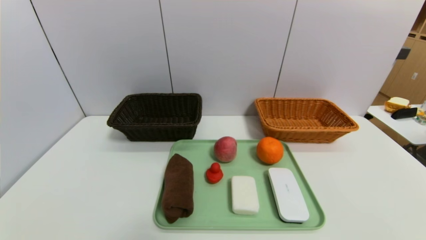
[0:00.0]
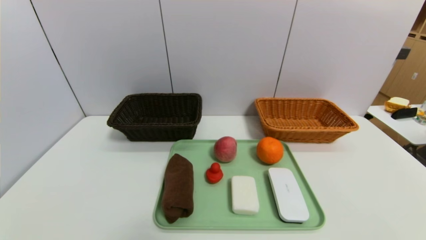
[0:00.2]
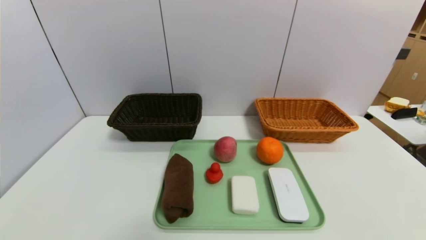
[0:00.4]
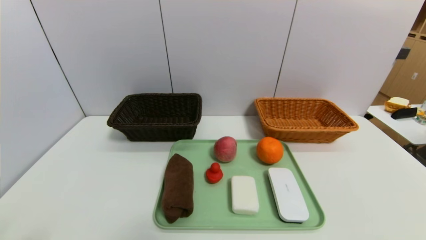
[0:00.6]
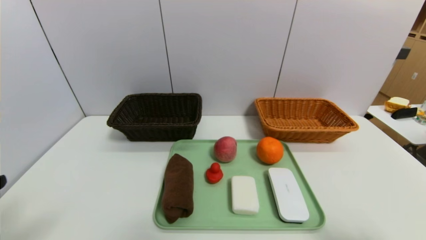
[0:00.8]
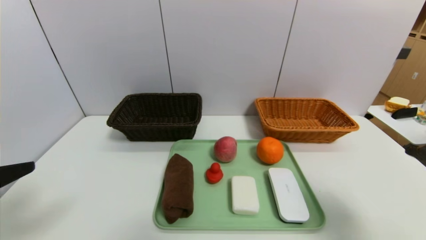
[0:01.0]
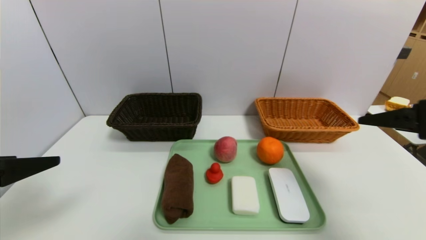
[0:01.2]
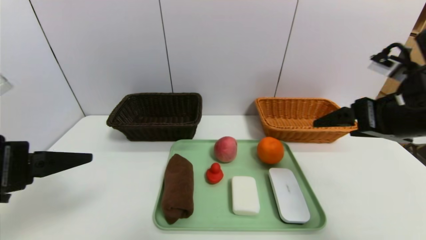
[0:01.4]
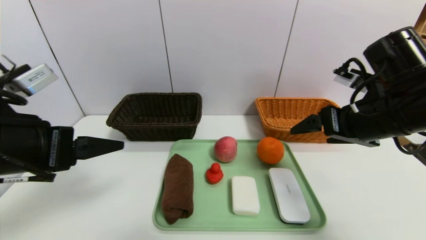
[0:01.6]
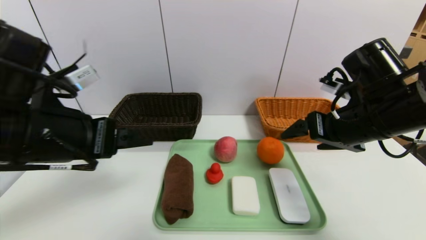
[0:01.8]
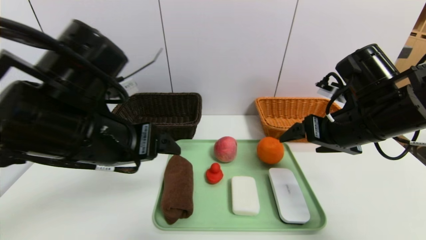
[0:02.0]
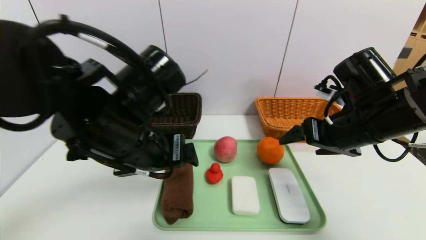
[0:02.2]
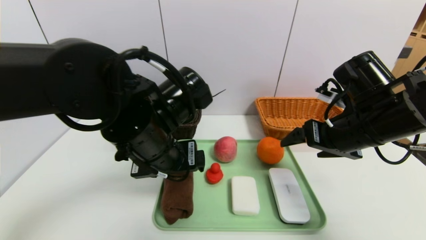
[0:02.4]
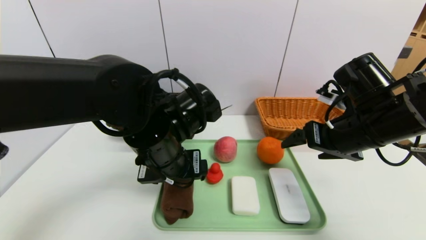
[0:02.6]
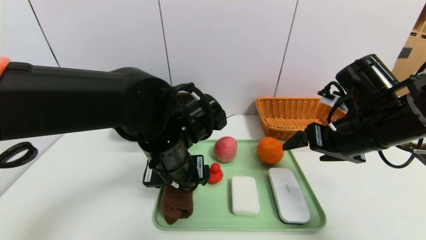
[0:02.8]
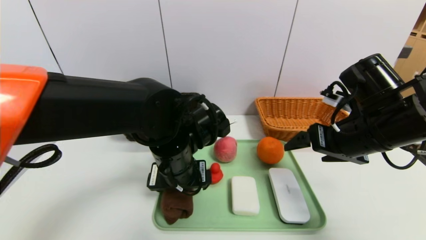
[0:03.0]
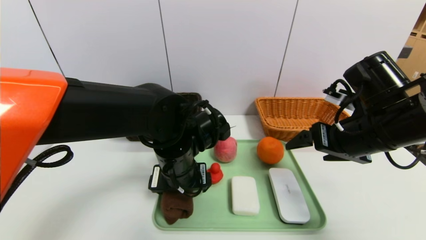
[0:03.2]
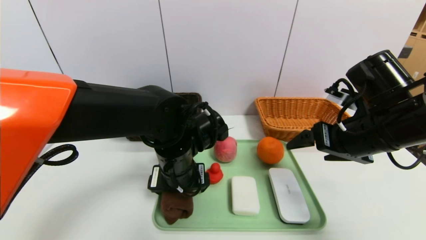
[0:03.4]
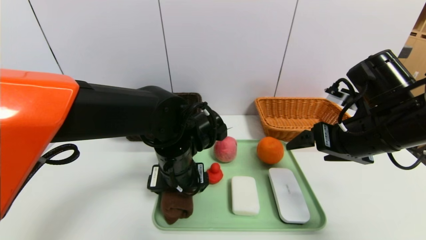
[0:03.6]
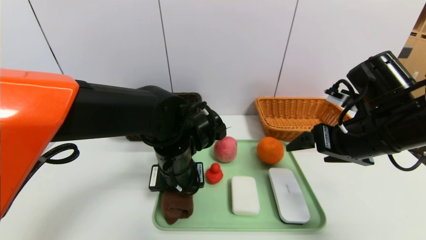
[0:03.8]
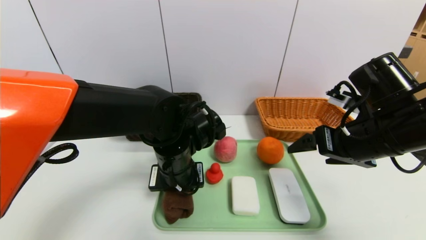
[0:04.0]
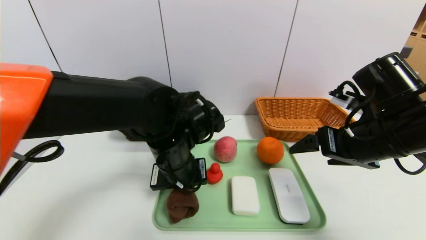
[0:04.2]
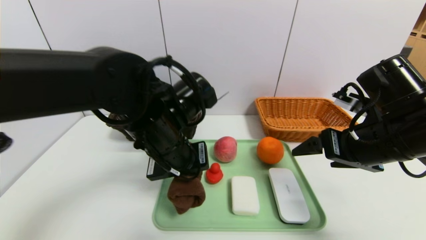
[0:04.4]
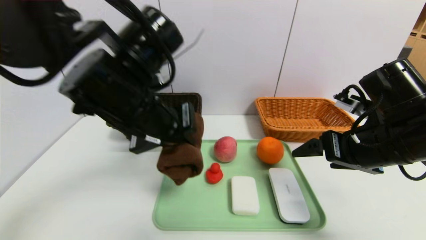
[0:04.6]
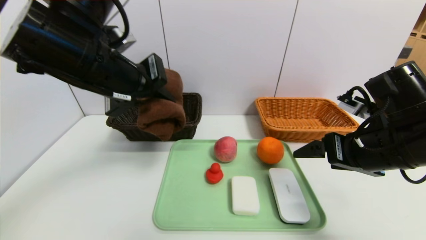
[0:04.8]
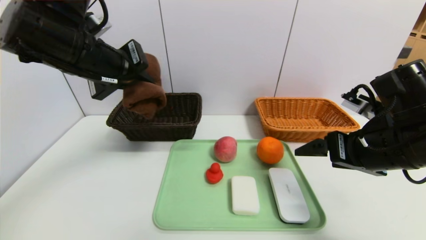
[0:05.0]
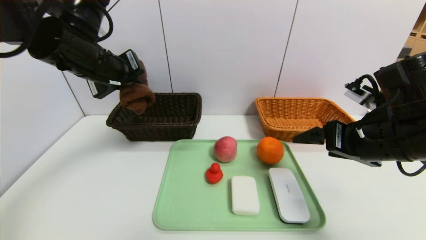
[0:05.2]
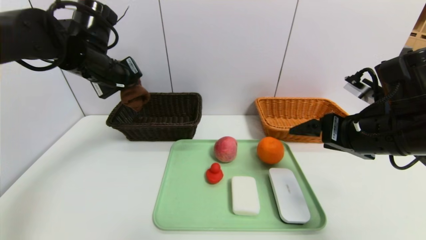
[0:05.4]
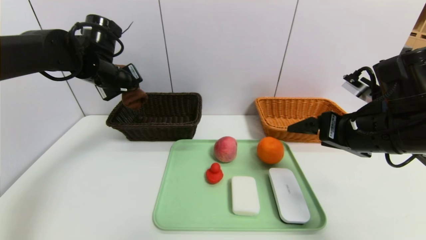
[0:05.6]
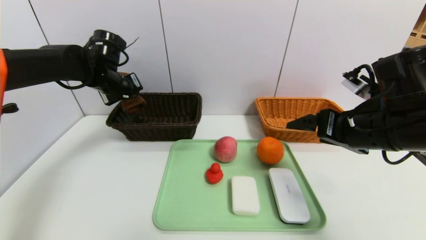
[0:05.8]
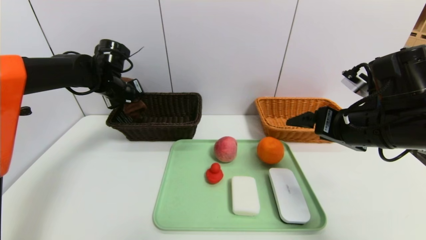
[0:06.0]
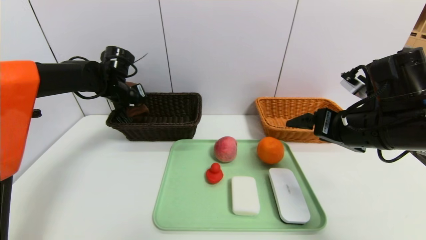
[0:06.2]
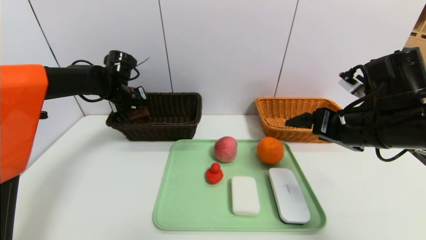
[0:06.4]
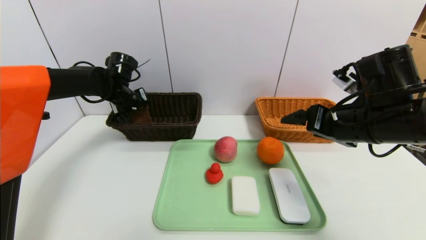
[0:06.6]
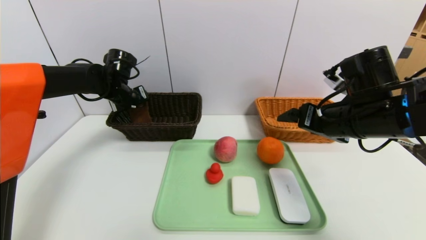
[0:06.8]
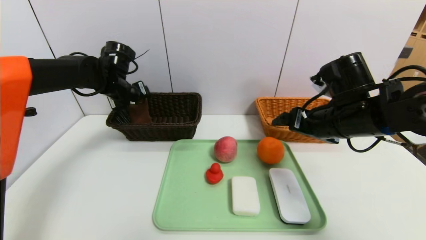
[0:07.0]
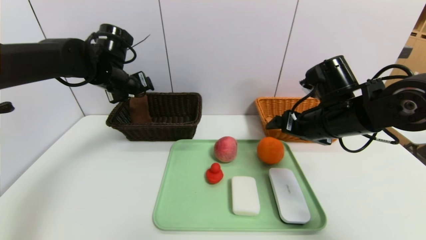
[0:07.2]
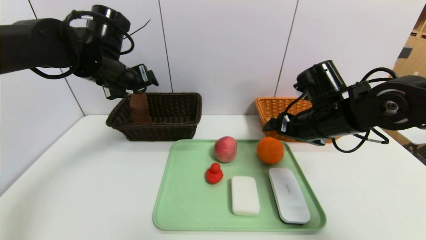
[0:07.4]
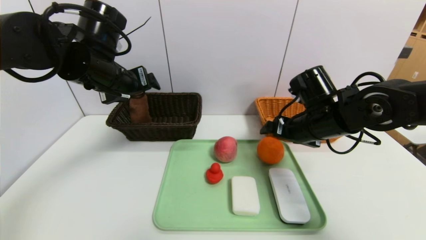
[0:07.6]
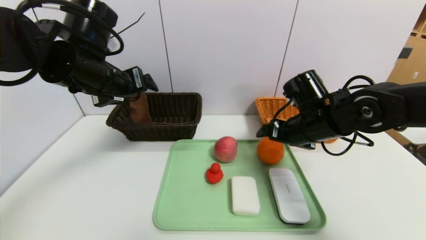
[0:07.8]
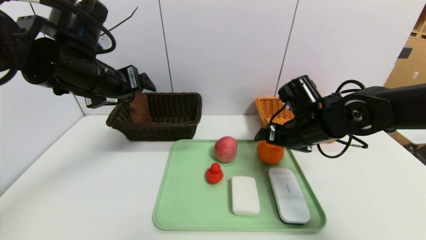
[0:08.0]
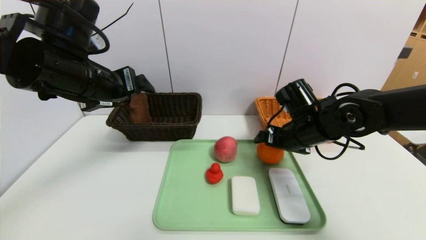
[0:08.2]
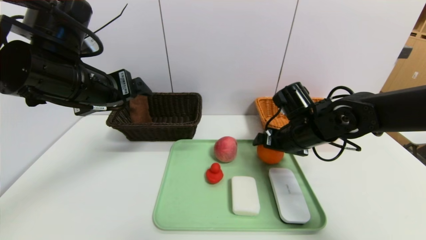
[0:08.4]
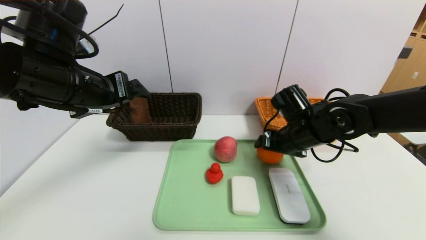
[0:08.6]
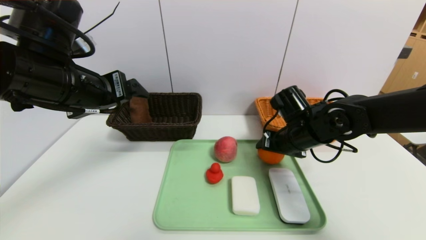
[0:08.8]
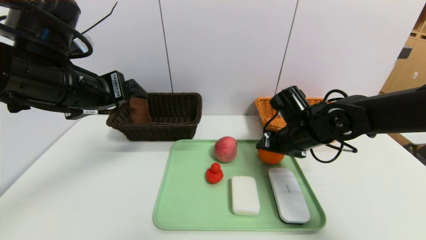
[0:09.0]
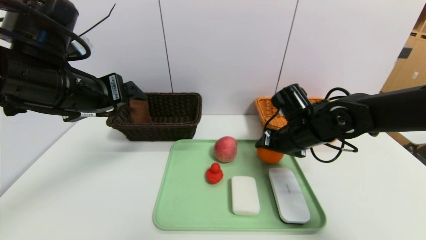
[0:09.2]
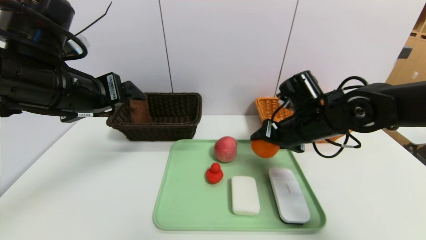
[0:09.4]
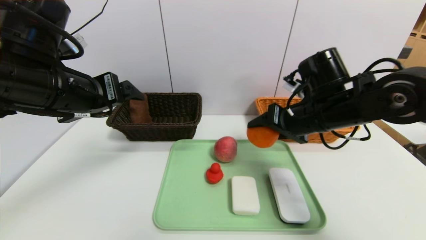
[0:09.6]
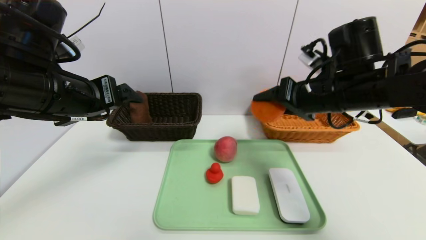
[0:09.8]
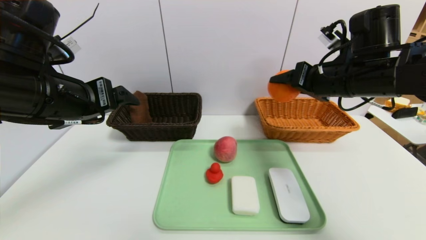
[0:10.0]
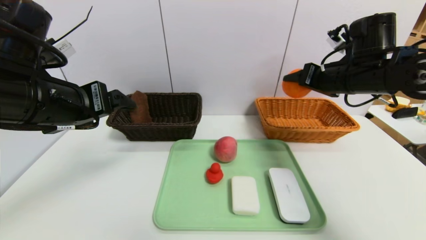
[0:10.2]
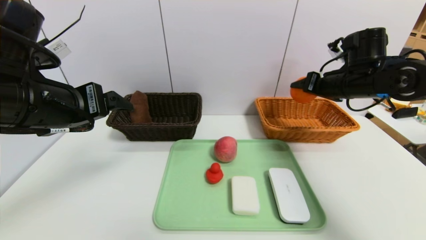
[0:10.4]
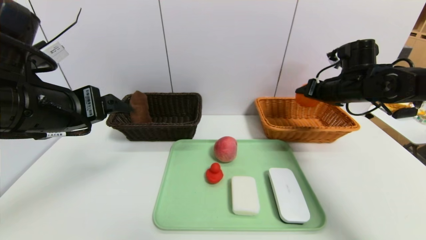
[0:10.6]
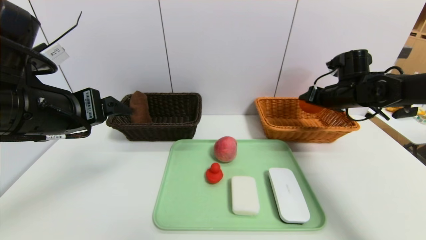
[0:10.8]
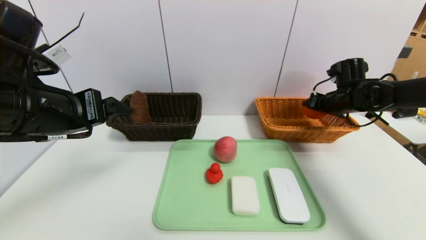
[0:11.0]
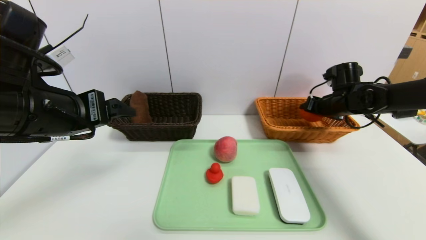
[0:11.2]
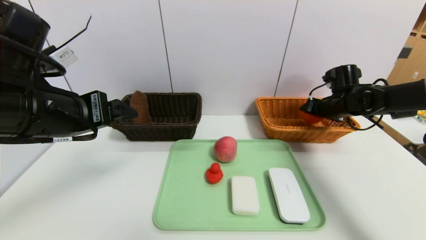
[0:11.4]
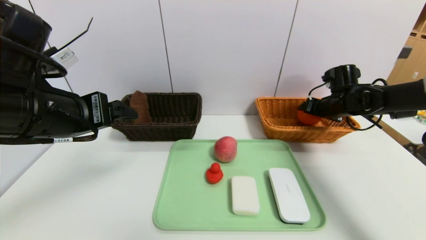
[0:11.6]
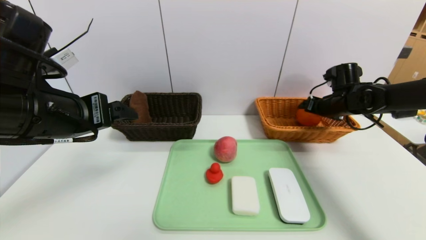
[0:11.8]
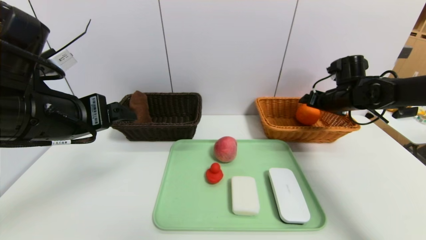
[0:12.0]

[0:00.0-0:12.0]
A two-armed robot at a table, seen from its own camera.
Task of the whole recording: place the food in the right basket with the right gripper, and place the non food items in the left basket with the left gripper.
Step, 0:00.0 to 0:07.2: Grasp the brown towel and put it in the left basket.
Step, 0:07.4 to 0:12.0: Grasp the orange and put it in the right basket.
0:00.0 to 0:01.6: The right gripper goes some 30 cm forward and upward. Meanwhile the left gripper is displaced upward and forward by about 25 cm.
0:01.6 to 0:03.0: The left gripper is displaced to the right, downward and forward by roughly 20 cm.
0:03.0 to 0:04.4: The left gripper travels upward by approximately 5 cm, and closes.
0:04.4 to 0:06.0: The left gripper shifts some 25 cm forward and to the left.
0:06.0 to 0:07.6: The left gripper shifts roughly 15 cm backward, upward and to the right, and opens its fingers; the right gripper travels forward by some 5 cm.
0:07.6 to 0:09.0: The right gripper closes its fingers. The left gripper shifts approximately 10 cm backward.
0:09.0 to 0:10.4: The right gripper moves to the right and upward, approximately 15 cm.
0:10.4 to 0:12.0: The right gripper moves some 5 cm, and opens its fingers.

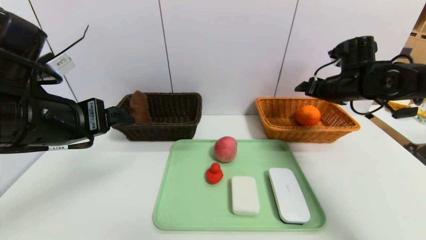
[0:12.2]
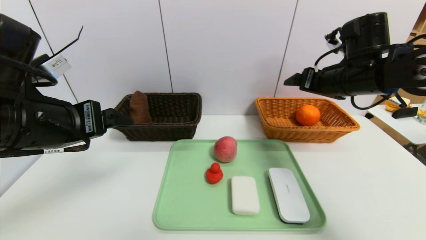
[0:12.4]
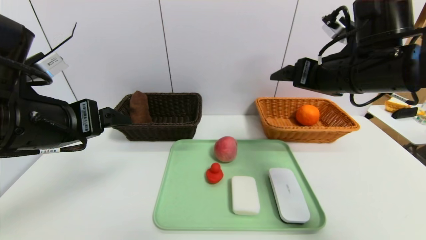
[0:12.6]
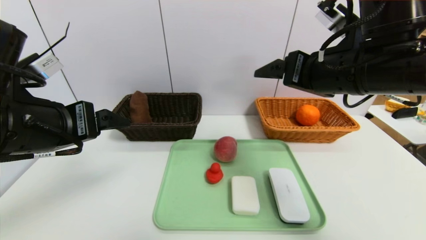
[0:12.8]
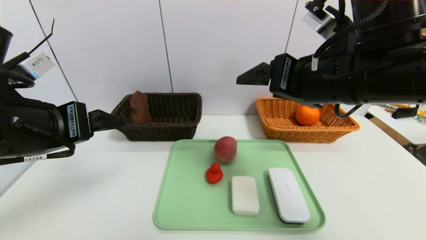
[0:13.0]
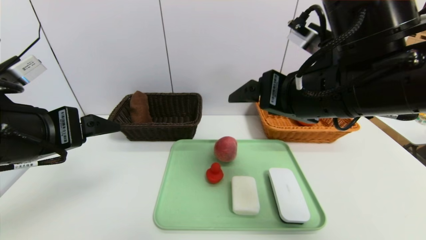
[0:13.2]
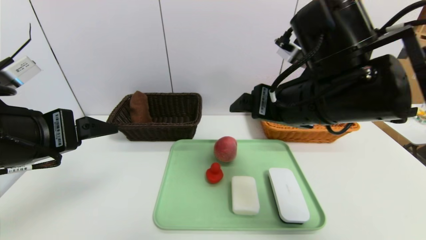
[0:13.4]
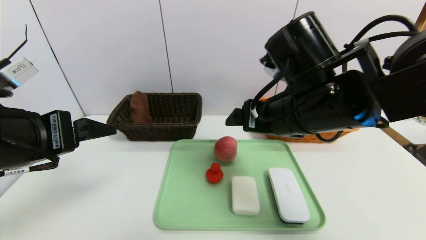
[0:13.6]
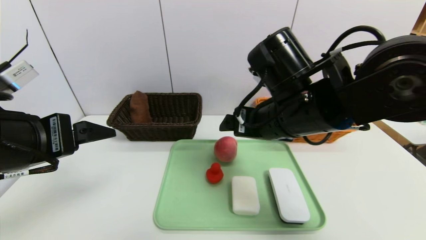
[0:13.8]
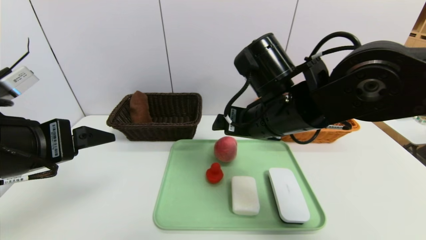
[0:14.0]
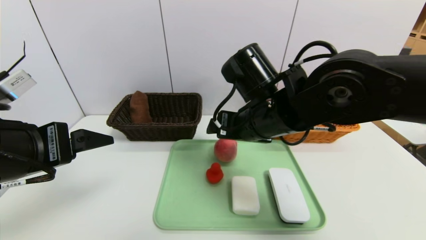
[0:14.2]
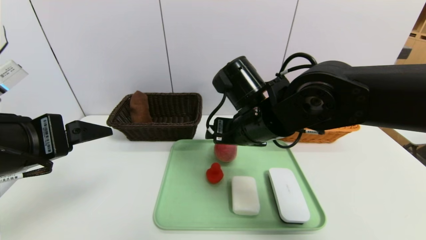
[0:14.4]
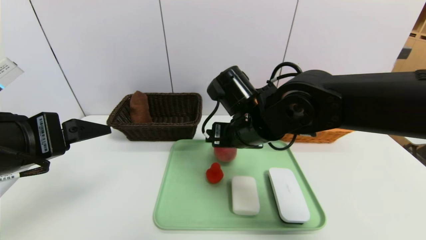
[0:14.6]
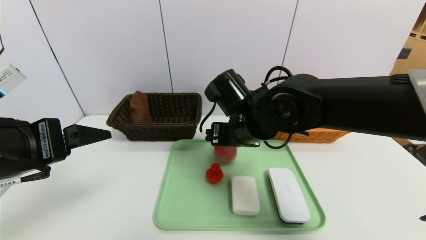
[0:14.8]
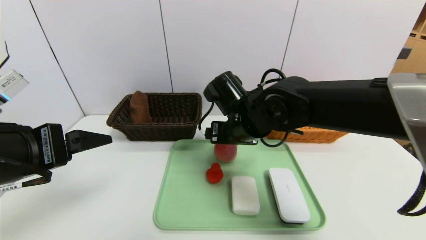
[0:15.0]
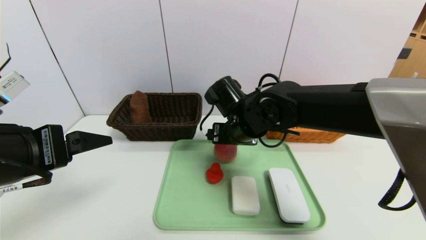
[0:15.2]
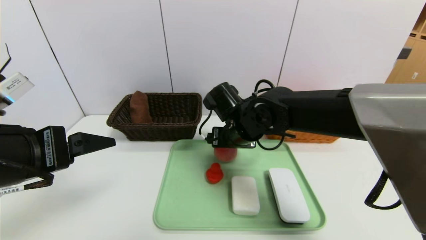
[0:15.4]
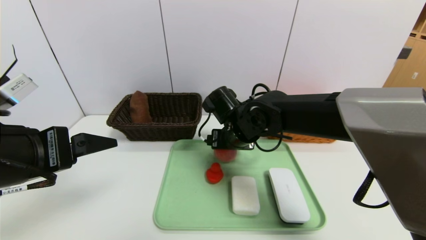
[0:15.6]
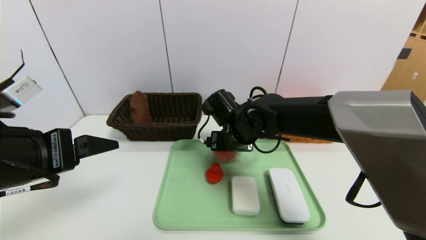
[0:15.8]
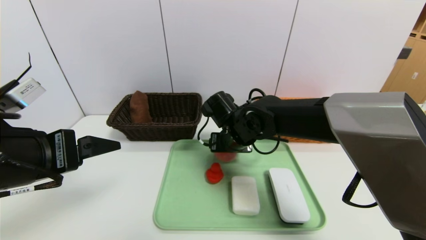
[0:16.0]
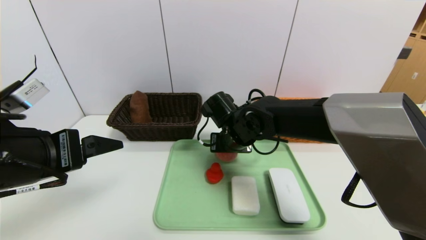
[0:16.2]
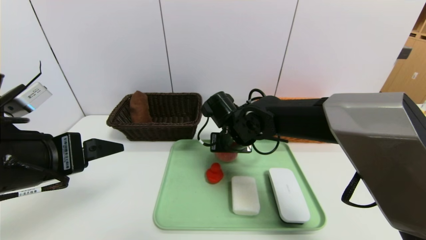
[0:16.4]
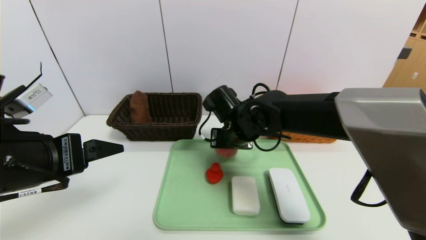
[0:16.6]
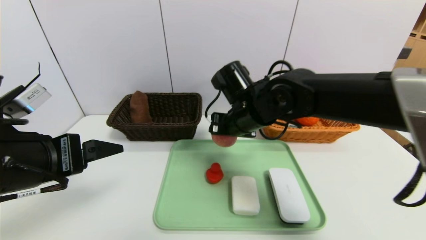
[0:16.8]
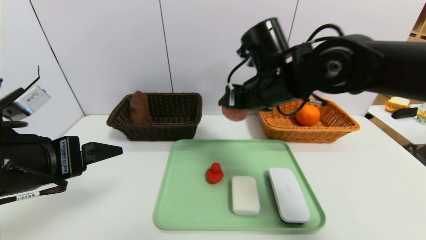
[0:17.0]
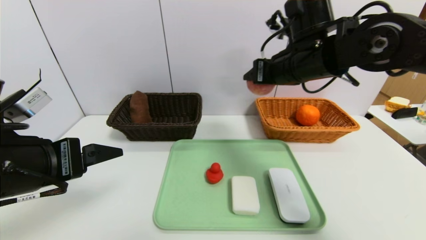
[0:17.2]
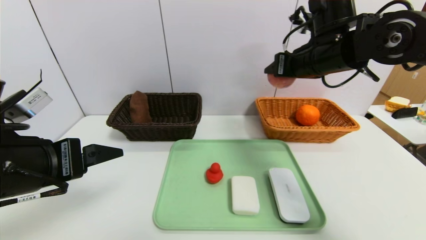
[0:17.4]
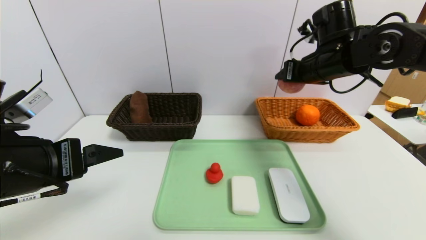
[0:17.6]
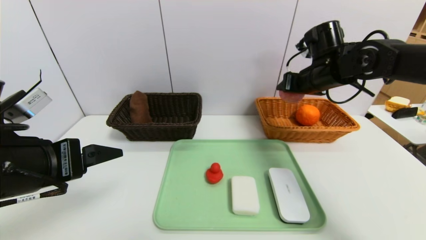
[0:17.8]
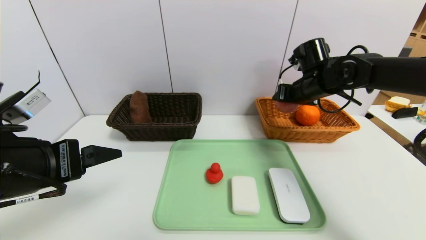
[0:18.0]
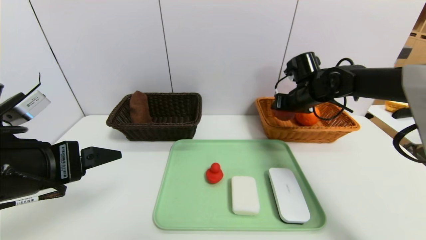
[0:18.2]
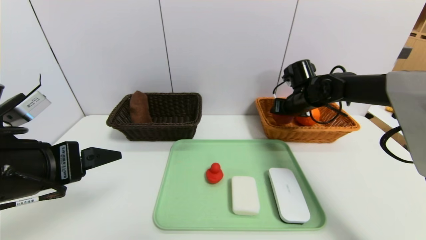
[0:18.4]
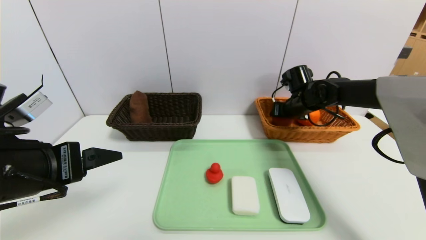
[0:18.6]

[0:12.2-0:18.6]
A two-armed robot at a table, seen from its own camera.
Task of the whole recording: place the food in the right basket with the right gripper, and place the non food items in the left basket with the left gripper.
0:12.2 to 0:13.8: The right gripper goes some 25 cm to the left and backward.
0:13.8 to 0:15.4: The right gripper is displaced downward, forward and to the left by some 15 cm.
0:15.4 to 0:17.0: The right gripper shifts some 10 cm upward and to the right, and closes up.
0:17.0 to 0:18.6: The right gripper goes some 20 cm forward, to the right and downward.
